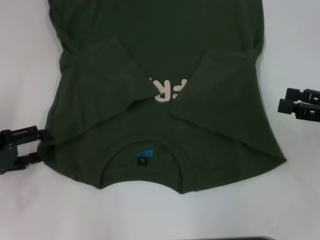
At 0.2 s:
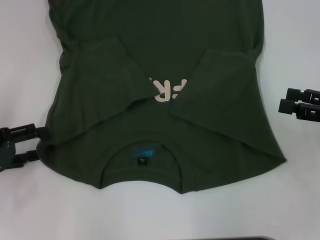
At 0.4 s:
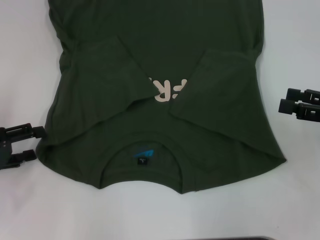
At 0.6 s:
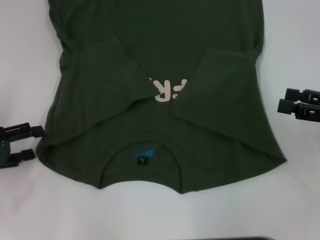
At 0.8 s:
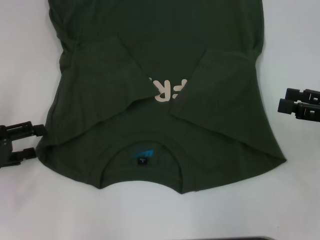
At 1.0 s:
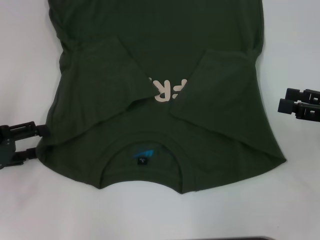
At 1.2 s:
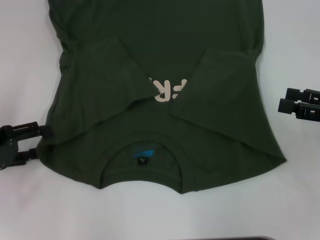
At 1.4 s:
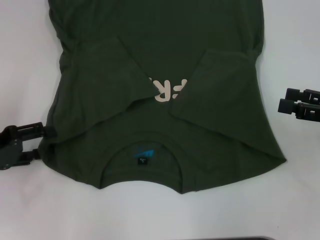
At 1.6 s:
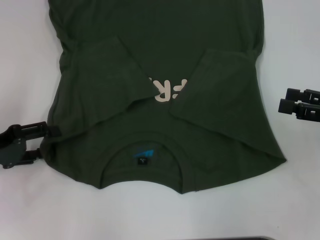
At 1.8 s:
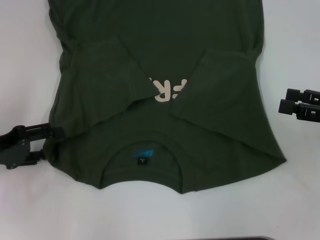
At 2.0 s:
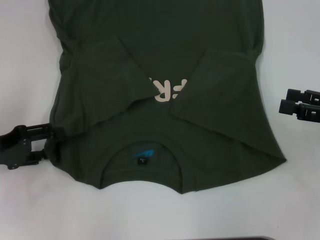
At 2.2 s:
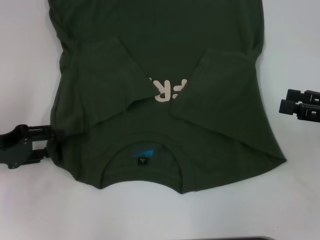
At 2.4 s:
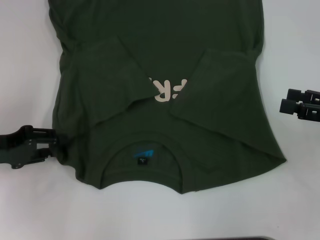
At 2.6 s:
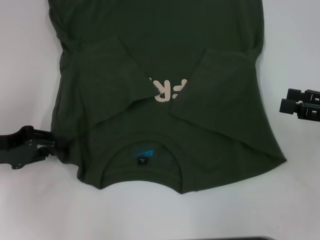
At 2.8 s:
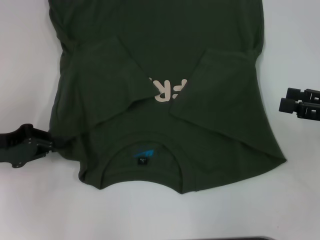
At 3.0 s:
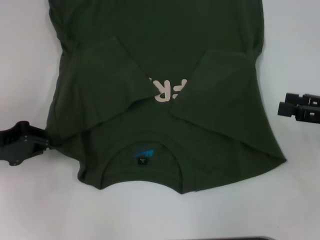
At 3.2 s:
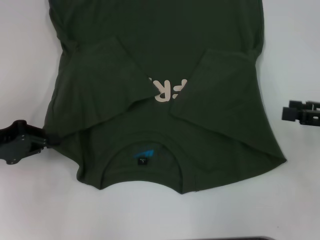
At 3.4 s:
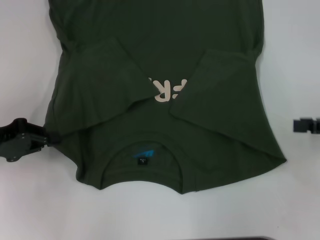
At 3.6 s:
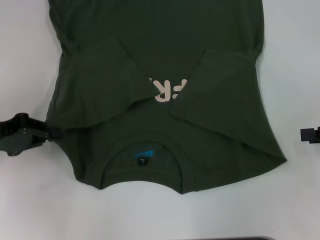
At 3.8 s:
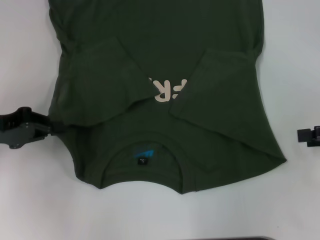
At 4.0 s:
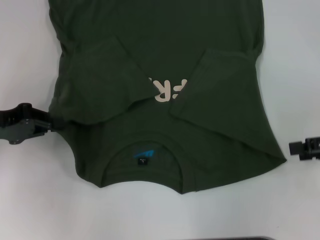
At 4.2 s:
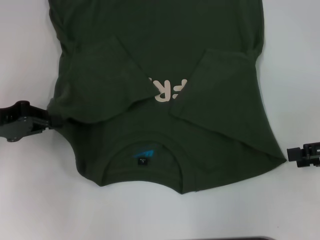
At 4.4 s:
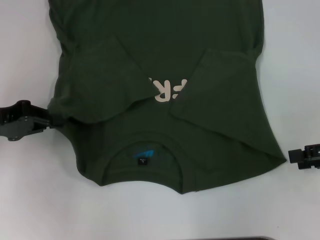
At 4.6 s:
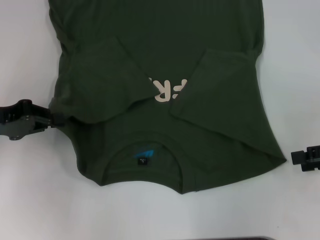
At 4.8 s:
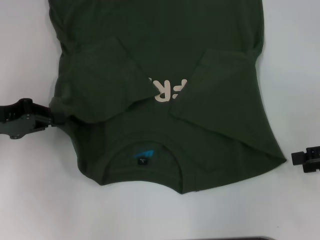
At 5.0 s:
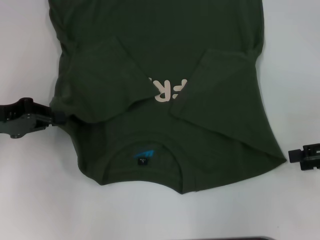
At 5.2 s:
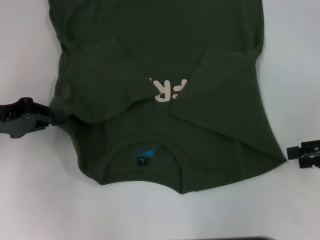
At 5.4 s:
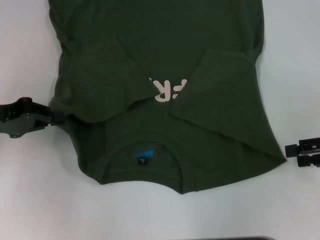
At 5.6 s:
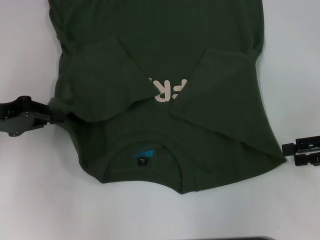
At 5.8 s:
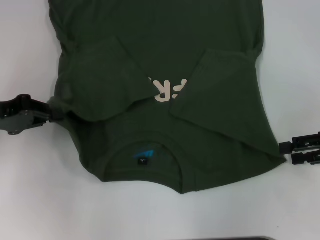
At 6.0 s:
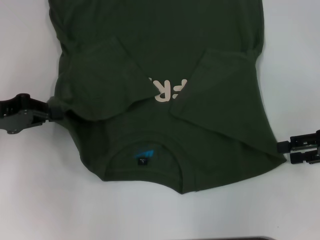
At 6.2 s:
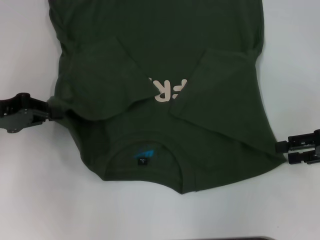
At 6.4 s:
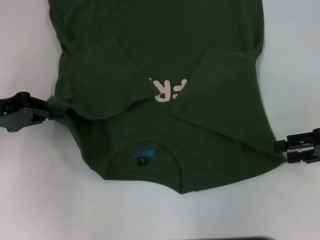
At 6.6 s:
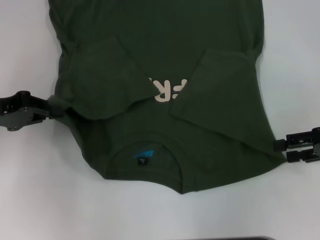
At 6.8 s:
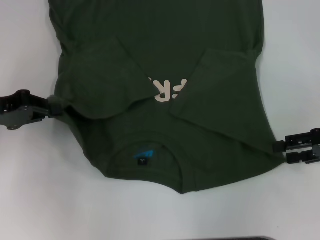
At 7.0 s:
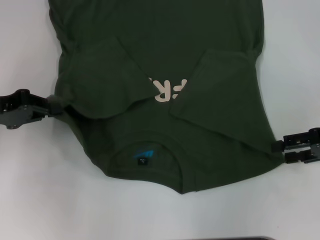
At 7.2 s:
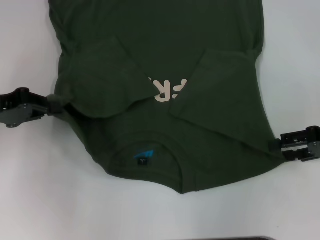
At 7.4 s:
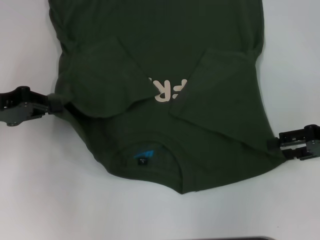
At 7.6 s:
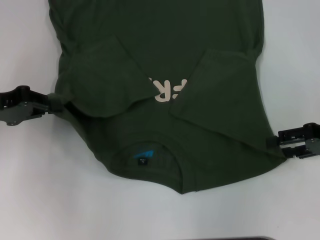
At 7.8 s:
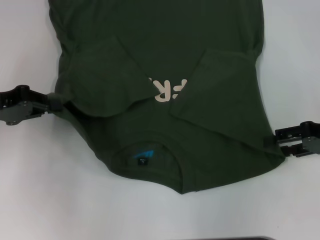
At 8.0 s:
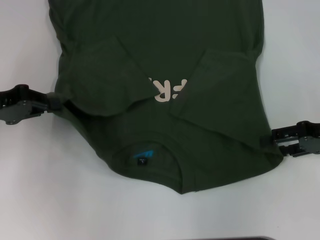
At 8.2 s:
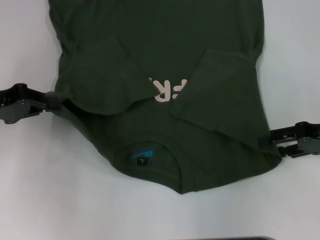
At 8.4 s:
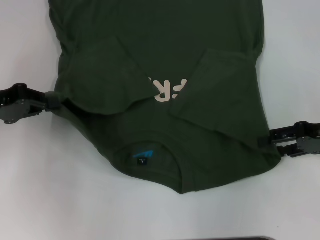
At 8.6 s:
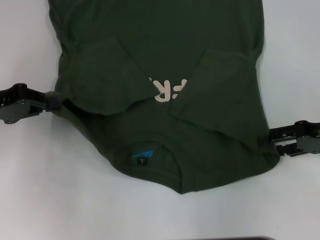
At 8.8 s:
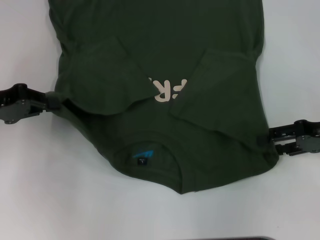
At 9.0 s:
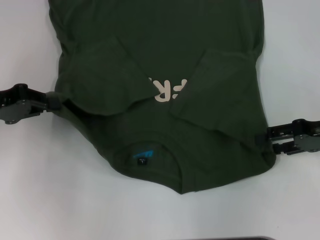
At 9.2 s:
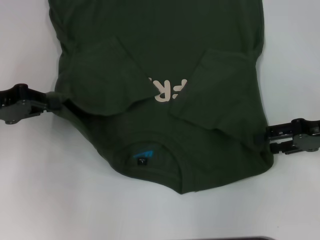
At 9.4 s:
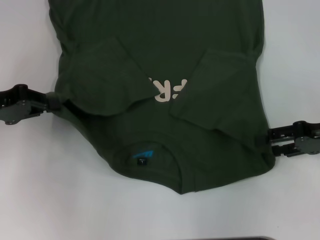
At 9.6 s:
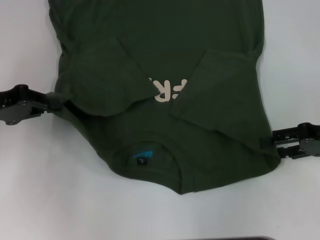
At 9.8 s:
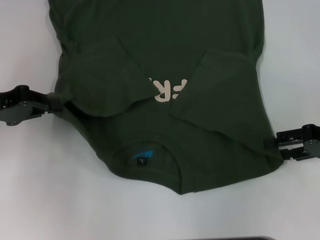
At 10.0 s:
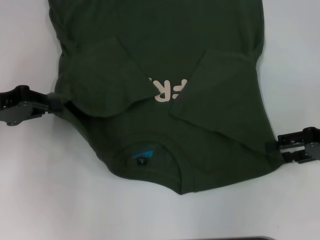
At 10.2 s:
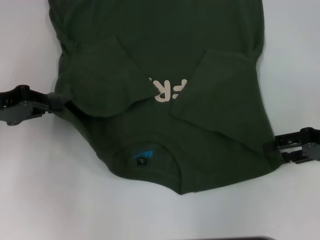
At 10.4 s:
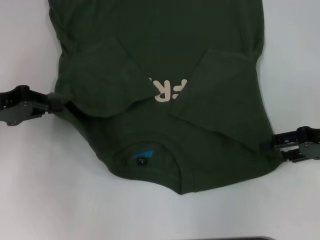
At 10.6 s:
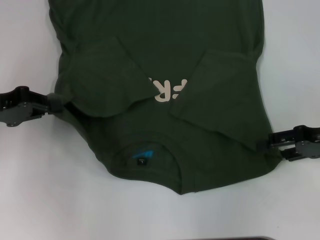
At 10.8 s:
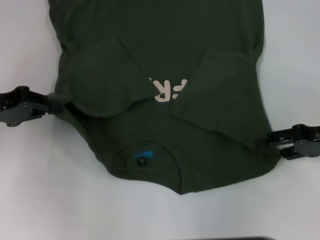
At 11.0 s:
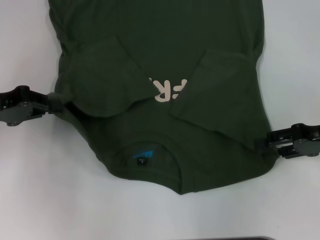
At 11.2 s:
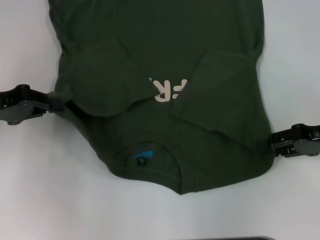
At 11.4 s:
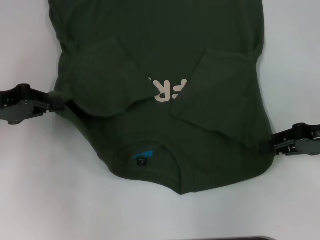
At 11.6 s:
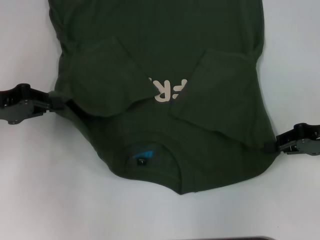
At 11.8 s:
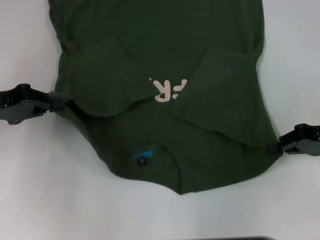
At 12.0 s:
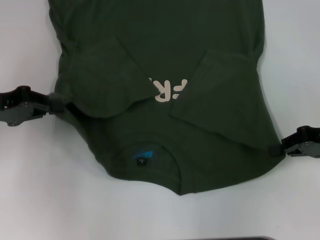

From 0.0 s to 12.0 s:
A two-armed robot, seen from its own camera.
Step, from 0.0 s to 3.2 s: Grab the bottom left corner with your left hand.
Step, from 3.4 s to 11.4 s: Grab the bottom right corner with your right hand.
From 0.0 s to 1.6 s: The grippers move only a little.
From 1.6 s to 3.0 s: The left gripper closes up.
From 4.4 s to 10.4 s: The grippers move only a little.
From 10.4 s to 12.0 s: The right gripper closes up.

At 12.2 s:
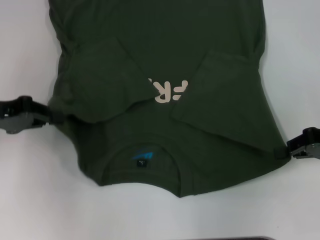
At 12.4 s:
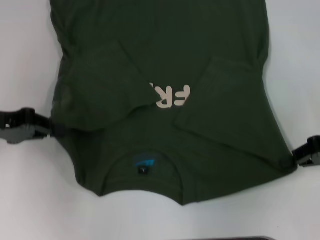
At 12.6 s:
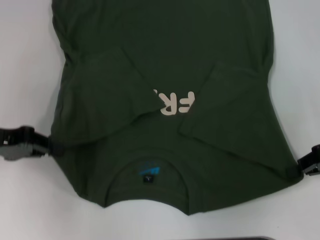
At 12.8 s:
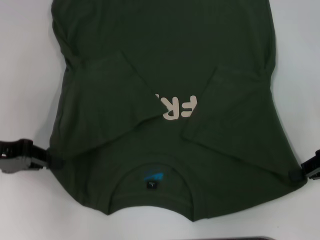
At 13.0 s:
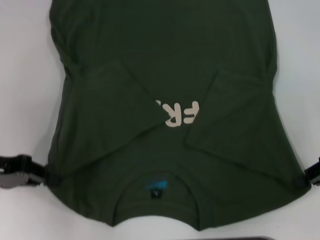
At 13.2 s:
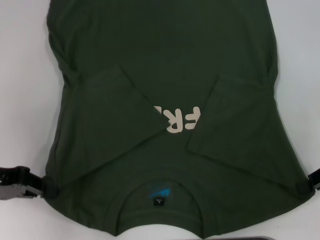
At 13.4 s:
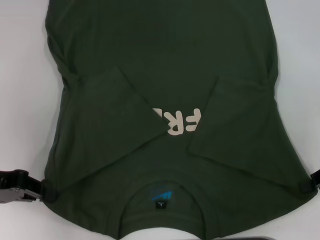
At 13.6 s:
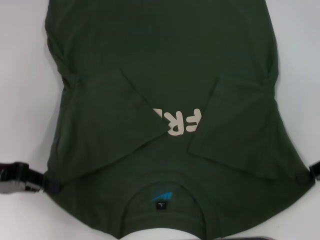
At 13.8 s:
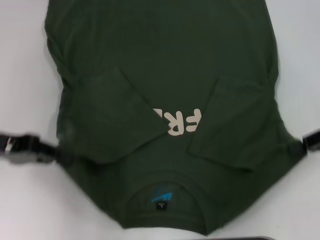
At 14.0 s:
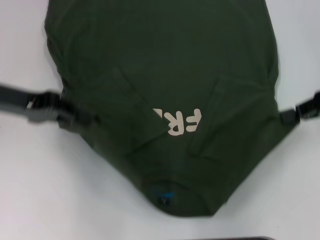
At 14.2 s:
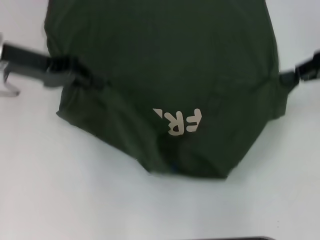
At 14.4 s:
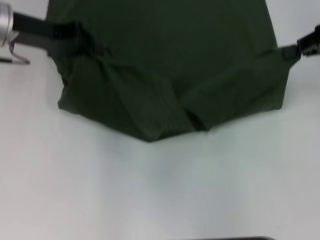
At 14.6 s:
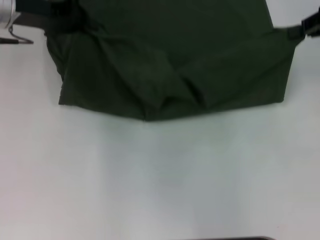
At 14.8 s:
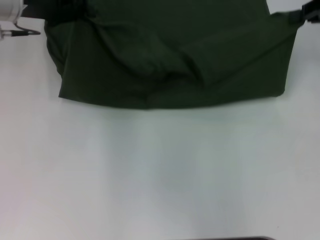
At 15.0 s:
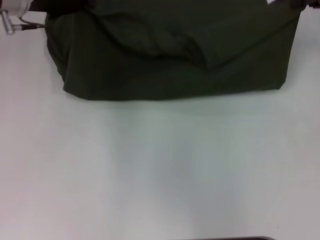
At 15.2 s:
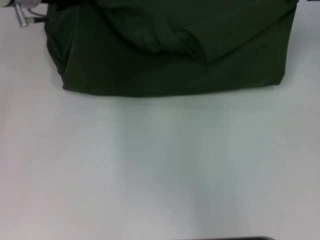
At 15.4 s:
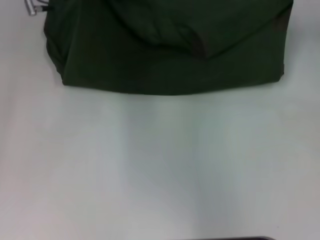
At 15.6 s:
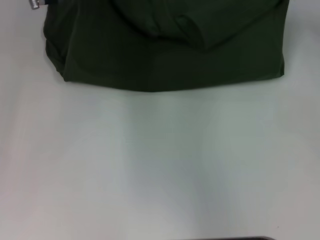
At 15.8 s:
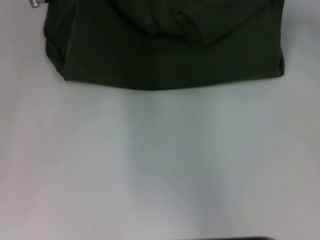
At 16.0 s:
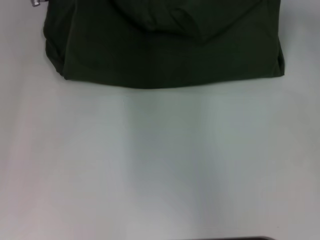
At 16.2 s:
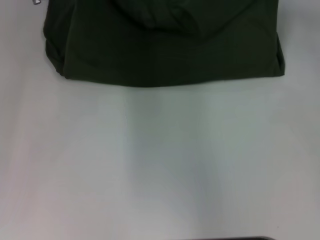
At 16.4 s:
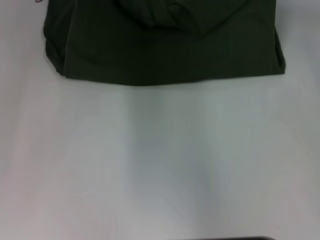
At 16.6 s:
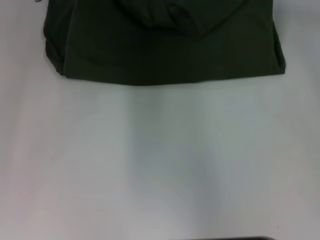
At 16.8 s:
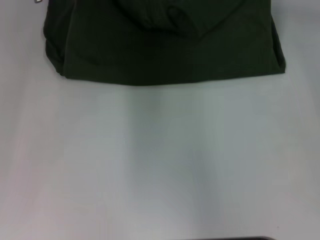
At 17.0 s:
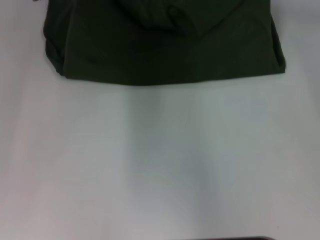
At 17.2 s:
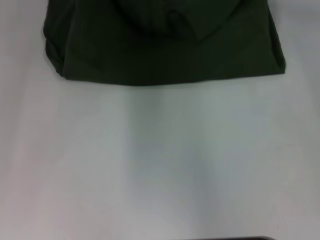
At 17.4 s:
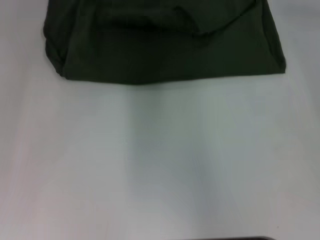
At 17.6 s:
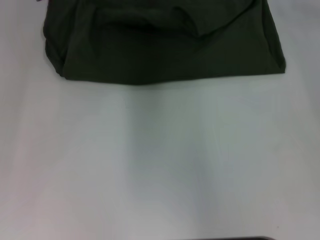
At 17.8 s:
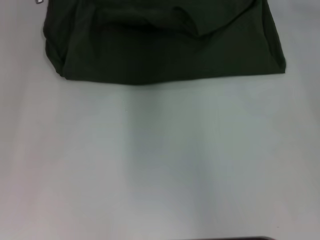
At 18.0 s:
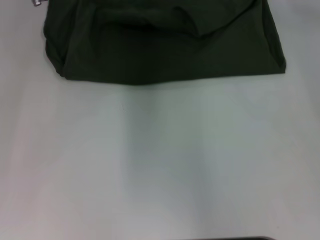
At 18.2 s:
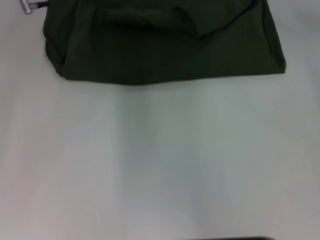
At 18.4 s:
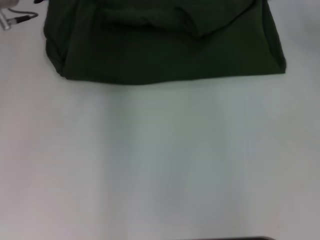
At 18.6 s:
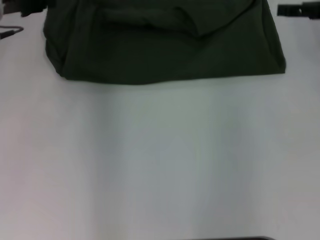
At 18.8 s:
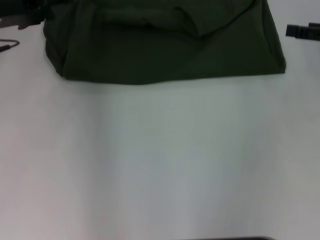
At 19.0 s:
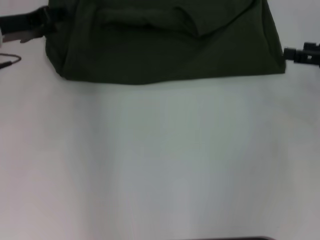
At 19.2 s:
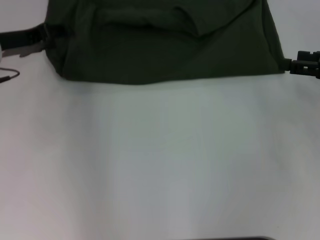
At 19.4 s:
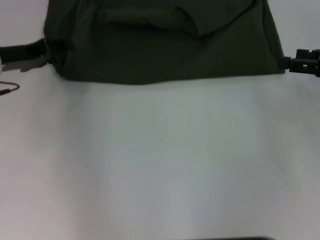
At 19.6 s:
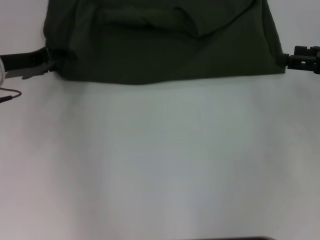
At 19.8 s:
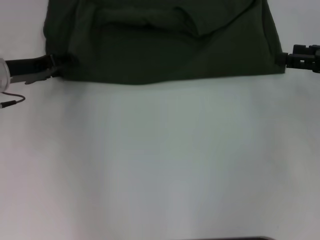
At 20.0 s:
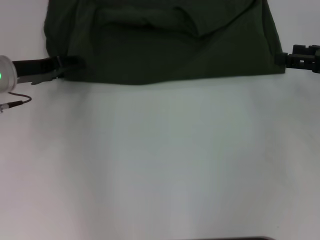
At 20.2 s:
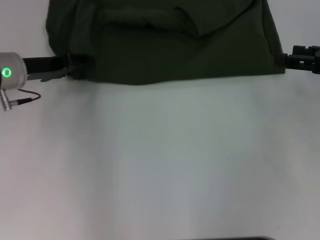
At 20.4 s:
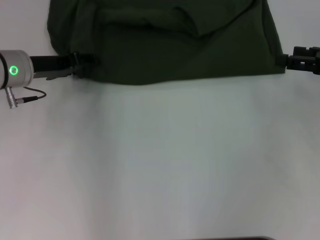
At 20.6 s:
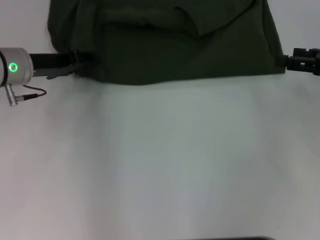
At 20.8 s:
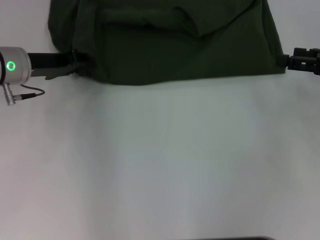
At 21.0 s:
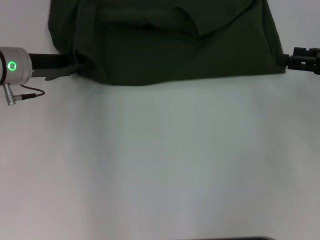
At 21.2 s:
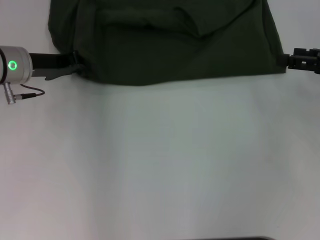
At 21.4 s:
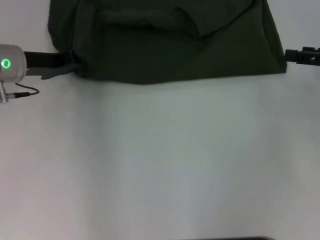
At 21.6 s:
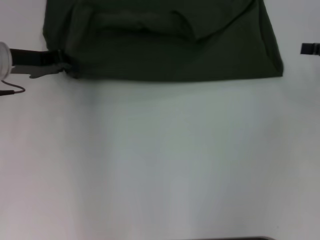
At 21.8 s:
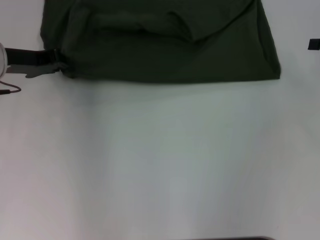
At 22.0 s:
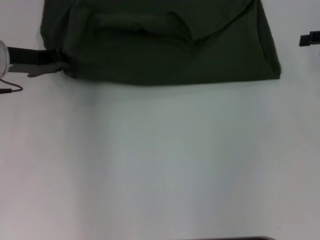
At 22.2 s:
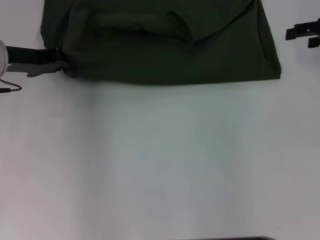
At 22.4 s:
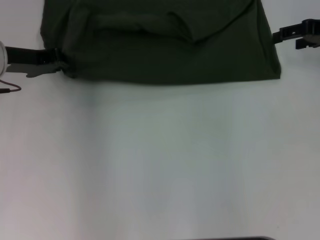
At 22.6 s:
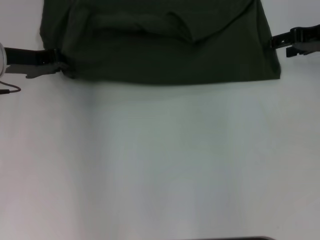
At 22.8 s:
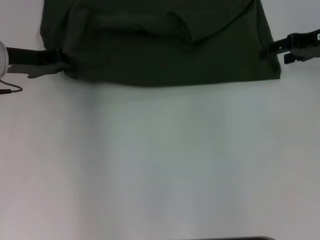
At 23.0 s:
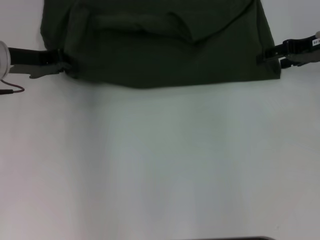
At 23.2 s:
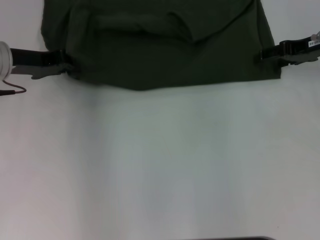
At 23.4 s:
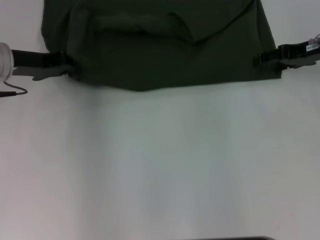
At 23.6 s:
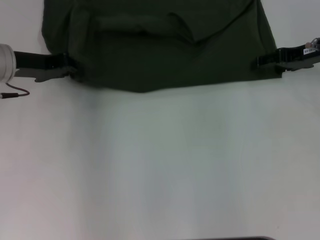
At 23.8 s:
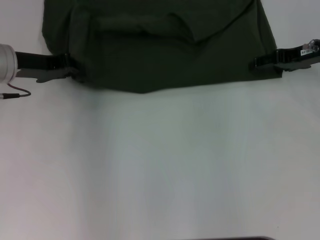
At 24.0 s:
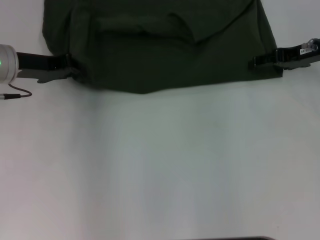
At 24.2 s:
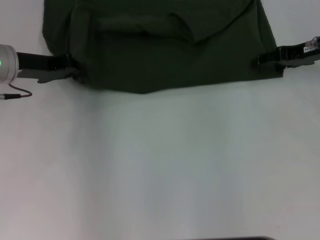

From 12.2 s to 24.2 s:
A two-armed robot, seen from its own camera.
Step, from 12.2 s to 18.0 s: Fold the clothes with your left hand.
Step, from 12.2 s to 18.0 s: Fold the clothes with your right hand.
From 13.8 s to 15.2 s: The left gripper moves forward and to the right, approximately 20 cm; the right gripper heads forward and upward, covering roughly 15 cm.
From 15.2 s to 16.6 s: The right gripper moves to the left and forward, roughly 10 cm.
From 16.6 s to 18.2 s: The left gripper opens its fingers. Meanwhile the right gripper opens.
From 18.2 s to 19.8 s: The left gripper is displaced backward, downward and to the left by some 15 cm, while the right gripper travels backward, downward and to the right by roughly 20 cm.
From 19.8 s to 21.2 s: The left gripper closes.
From 21.2 s to 22.6 s: The right gripper shifts about 10 cm forward.
From 22.6 s to 24.2 s: There are only small adjustments of the grippers.
